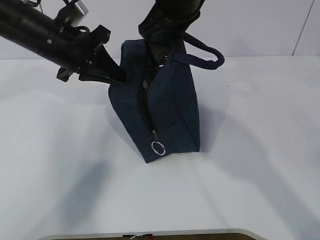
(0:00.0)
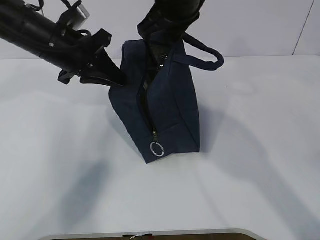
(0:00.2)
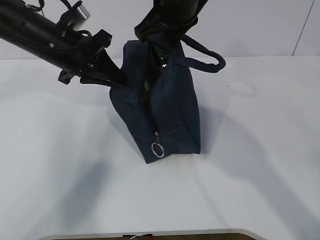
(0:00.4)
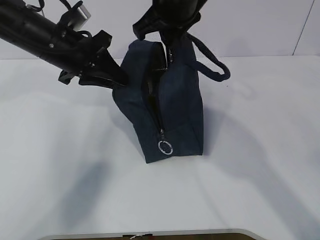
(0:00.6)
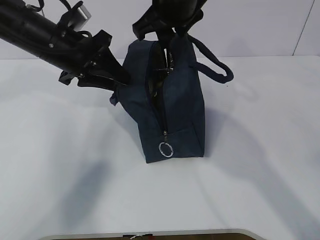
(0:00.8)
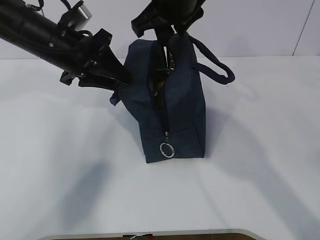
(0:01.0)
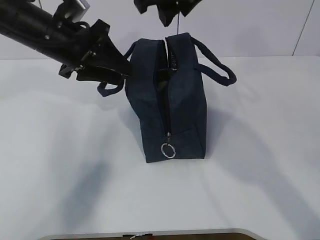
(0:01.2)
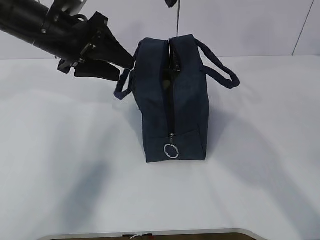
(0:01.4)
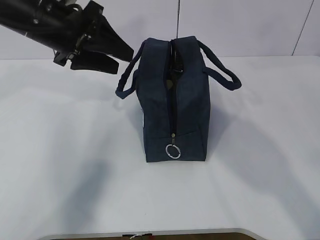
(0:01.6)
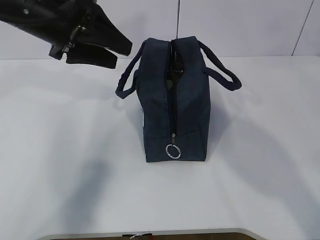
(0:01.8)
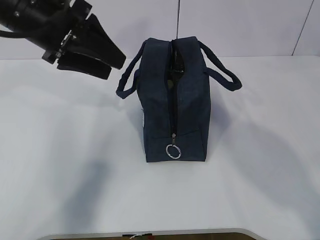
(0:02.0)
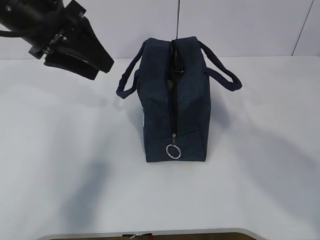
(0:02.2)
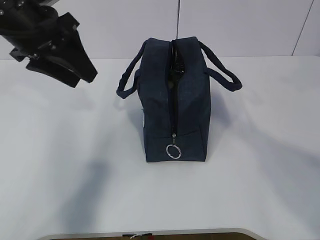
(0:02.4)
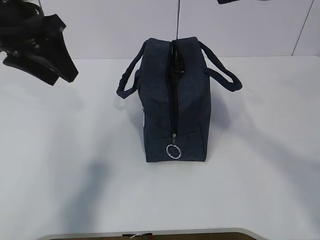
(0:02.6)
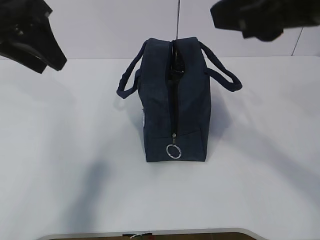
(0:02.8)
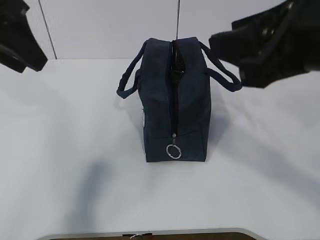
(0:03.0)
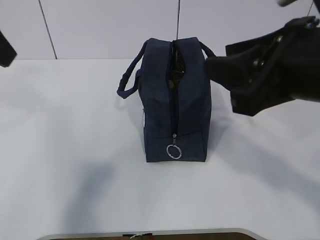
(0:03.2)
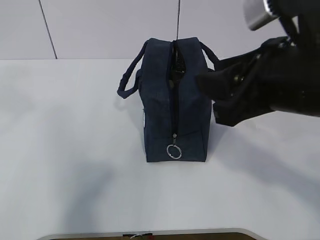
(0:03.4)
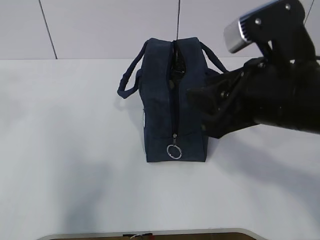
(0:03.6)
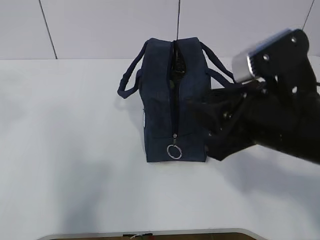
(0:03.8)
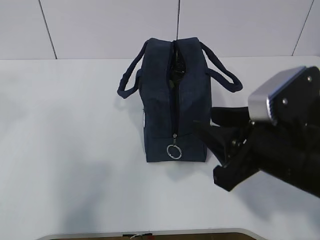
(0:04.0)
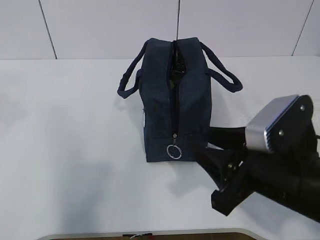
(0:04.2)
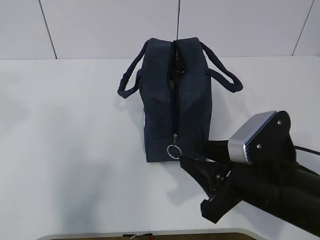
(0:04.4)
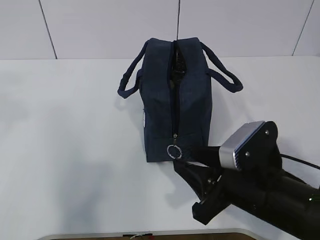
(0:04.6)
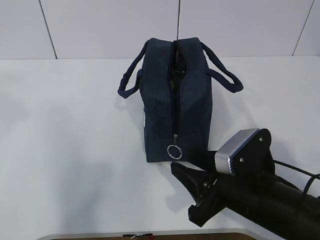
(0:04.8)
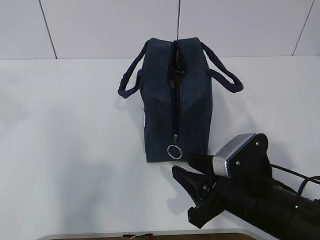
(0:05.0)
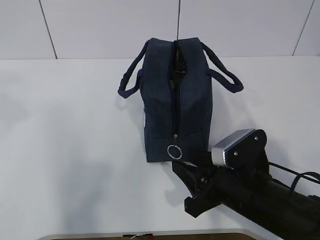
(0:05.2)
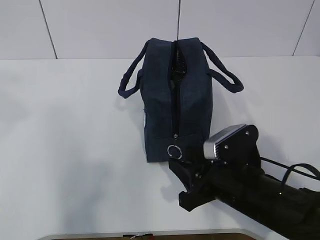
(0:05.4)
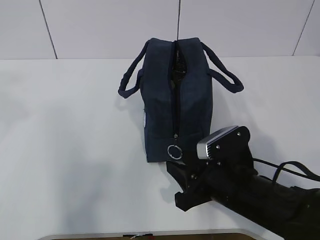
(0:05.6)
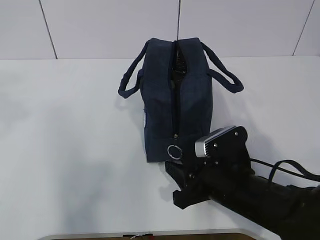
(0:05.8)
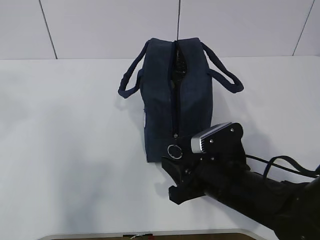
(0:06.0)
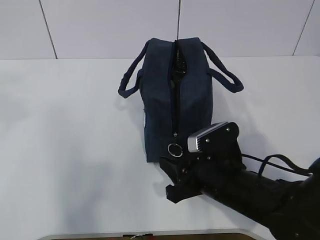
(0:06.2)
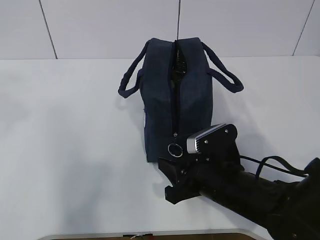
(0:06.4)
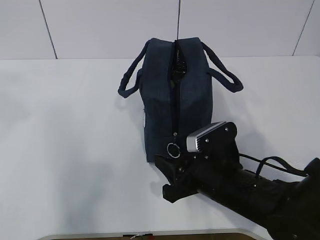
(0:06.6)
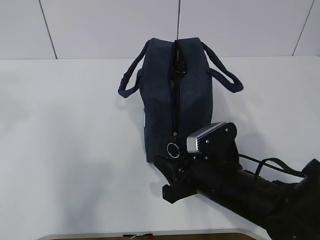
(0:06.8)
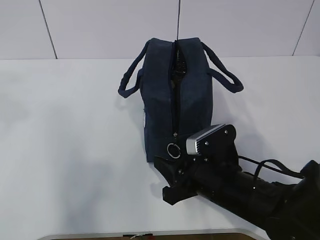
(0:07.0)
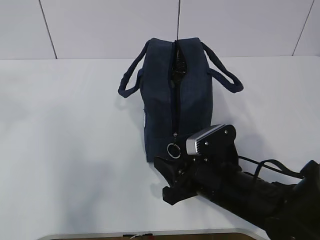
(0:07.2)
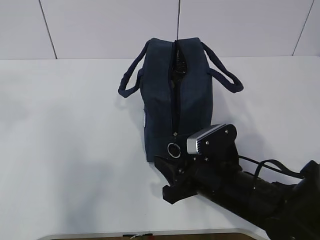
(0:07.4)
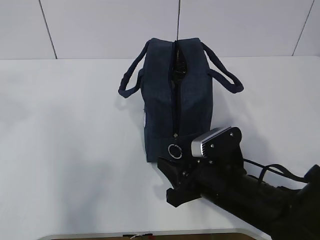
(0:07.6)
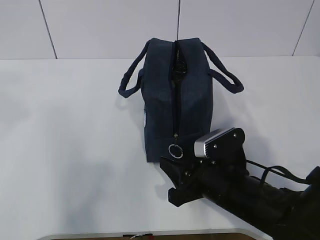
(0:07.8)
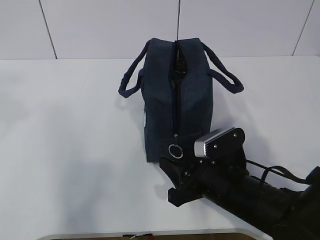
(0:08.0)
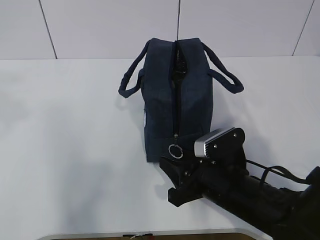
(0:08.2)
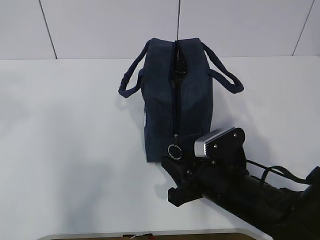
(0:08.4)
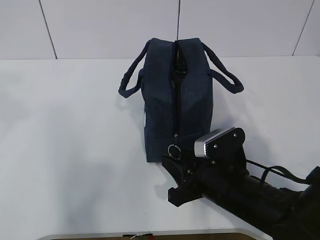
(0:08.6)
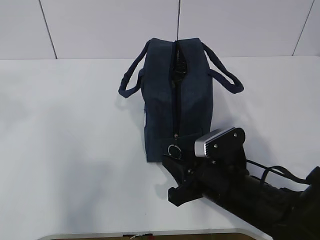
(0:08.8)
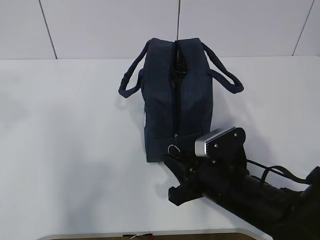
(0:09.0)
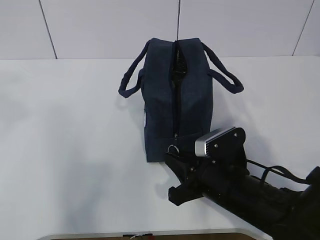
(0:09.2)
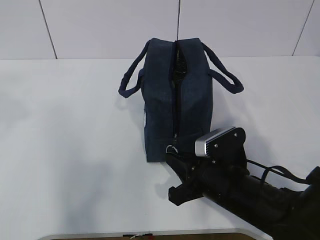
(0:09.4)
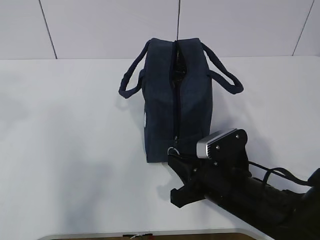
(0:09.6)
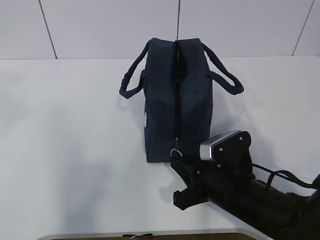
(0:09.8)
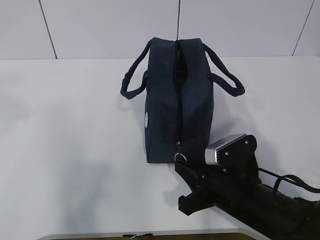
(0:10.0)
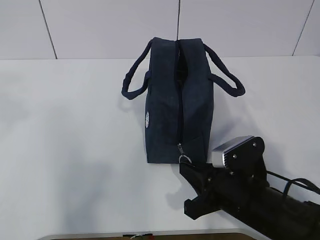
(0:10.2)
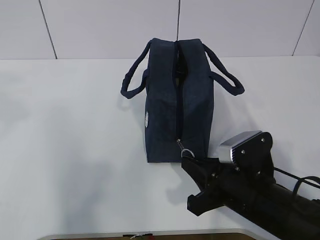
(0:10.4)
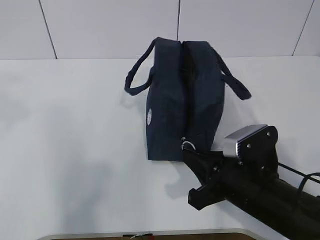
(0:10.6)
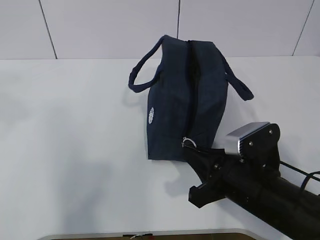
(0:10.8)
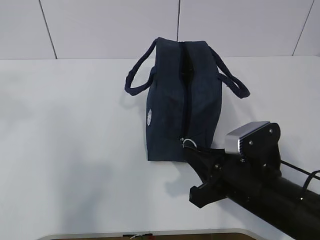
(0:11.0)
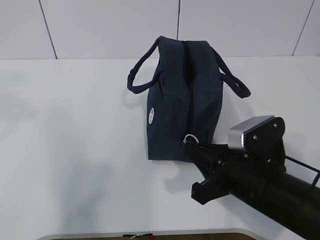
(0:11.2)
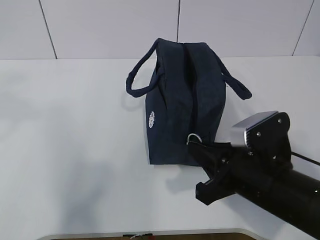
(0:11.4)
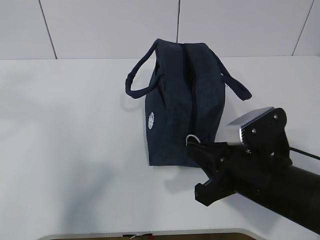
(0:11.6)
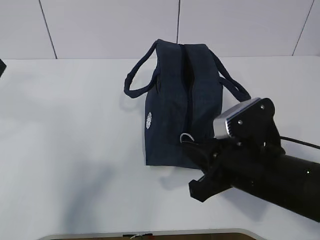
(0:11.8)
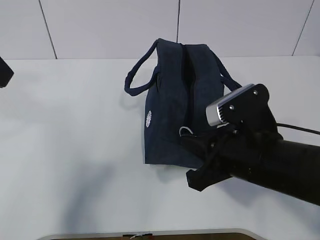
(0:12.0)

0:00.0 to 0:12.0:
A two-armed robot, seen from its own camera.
Step, 0:00.0 to 0:10.2: Grab the lunch bag with your left hand.
0:00.0 to 0:01.6: The right gripper shifts some 10 cm upward, and opens up; the left gripper opens up.
0:01.6 to 0:03.0: The right gripper shifts approximately 20 cm backward, to the right and downward; the left gripper heads upward, backward and to the left, covering approximately 10 cm.
0:03.0 to 0:04.4: The left gripper shifts approximately 10 cm backward; the right gripper is displaced downward by about 20 cm.
0:04.4 to 0:06.0: The right gripper travels downward by approximately 5 cm.
0:06.0 to 0:07.6: The grippers move only a little.
0:07.6 to 0:09.0: Both grippers stay put.
0:09.0 to 0:10.4: There are only small adjustments of the grippers.
0:10.4 to 0:12.0: The right gripper goes roughly 10 cm upward; the left gripper shifts by roughly 5 cm.

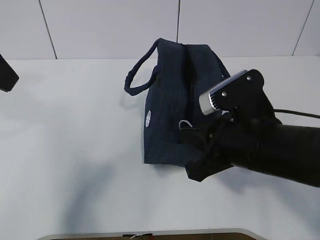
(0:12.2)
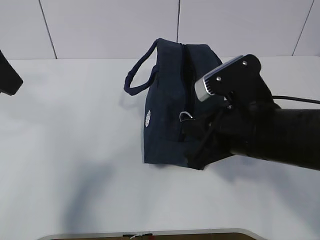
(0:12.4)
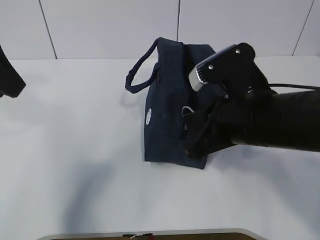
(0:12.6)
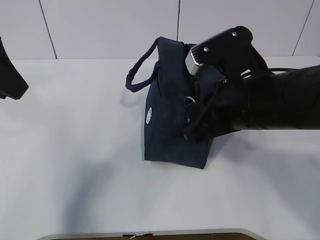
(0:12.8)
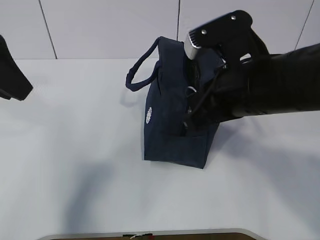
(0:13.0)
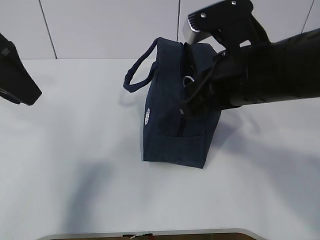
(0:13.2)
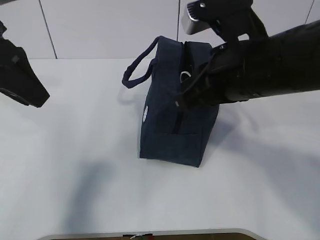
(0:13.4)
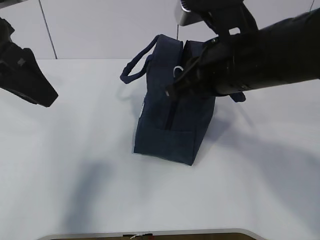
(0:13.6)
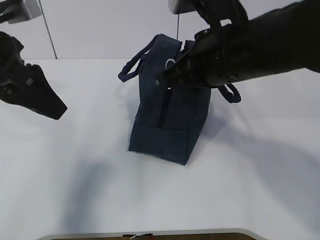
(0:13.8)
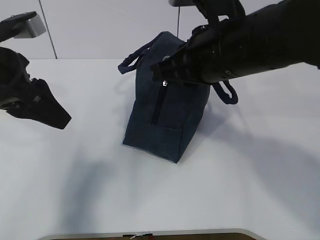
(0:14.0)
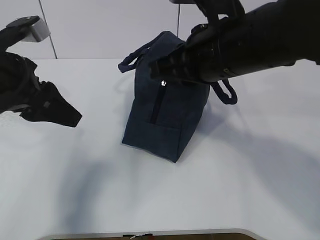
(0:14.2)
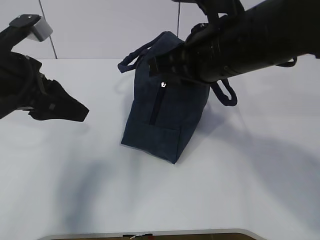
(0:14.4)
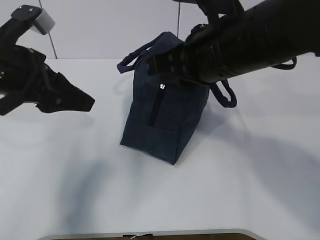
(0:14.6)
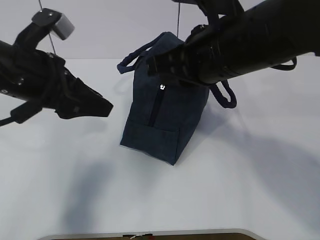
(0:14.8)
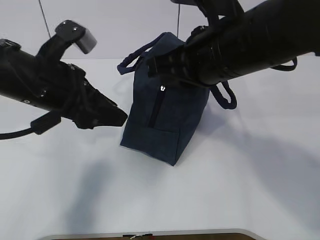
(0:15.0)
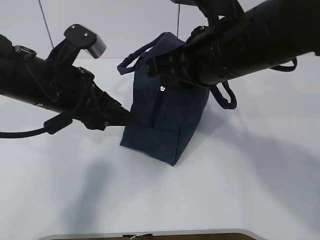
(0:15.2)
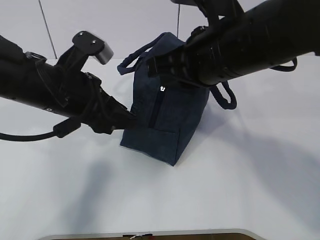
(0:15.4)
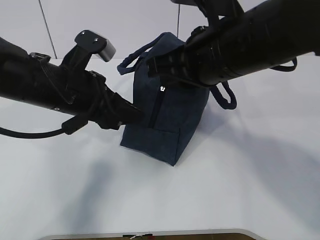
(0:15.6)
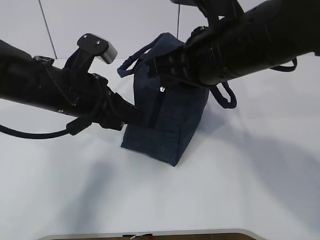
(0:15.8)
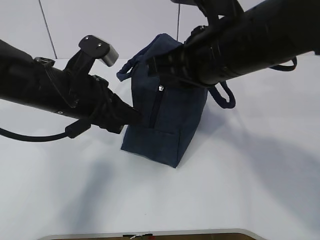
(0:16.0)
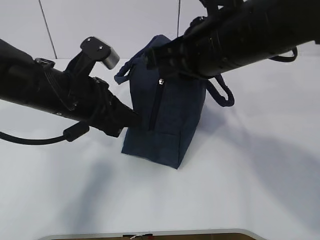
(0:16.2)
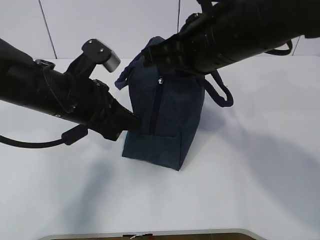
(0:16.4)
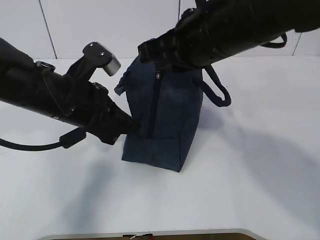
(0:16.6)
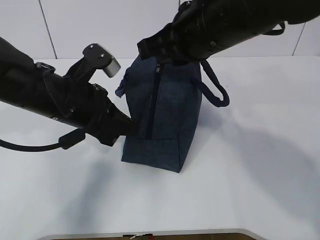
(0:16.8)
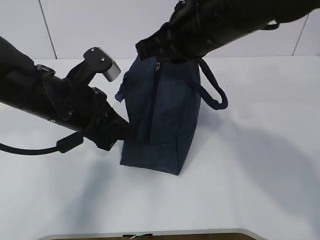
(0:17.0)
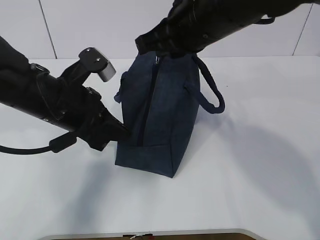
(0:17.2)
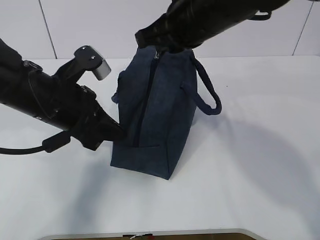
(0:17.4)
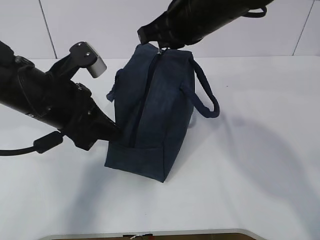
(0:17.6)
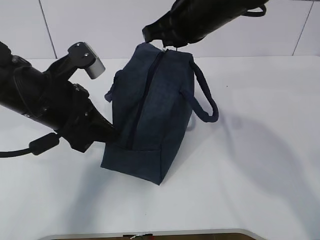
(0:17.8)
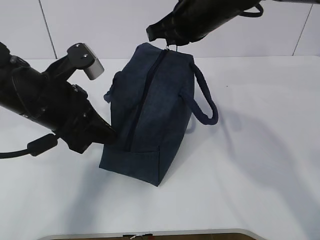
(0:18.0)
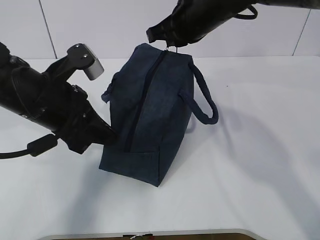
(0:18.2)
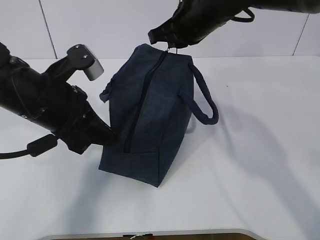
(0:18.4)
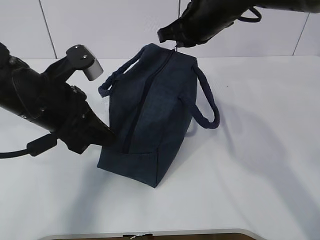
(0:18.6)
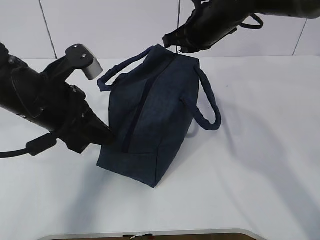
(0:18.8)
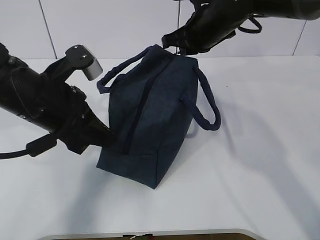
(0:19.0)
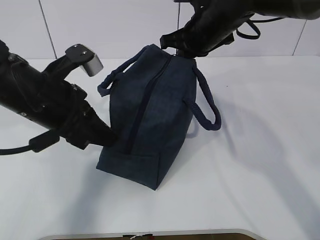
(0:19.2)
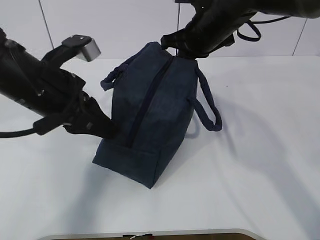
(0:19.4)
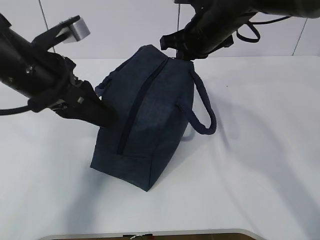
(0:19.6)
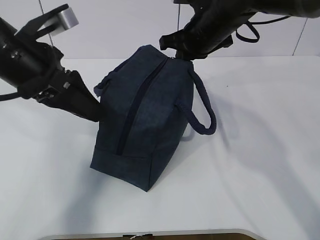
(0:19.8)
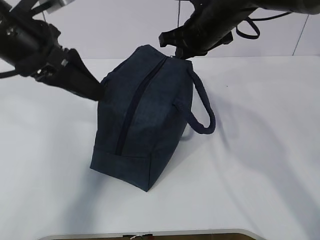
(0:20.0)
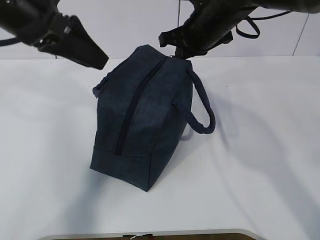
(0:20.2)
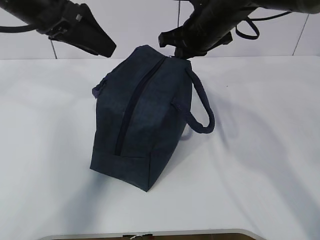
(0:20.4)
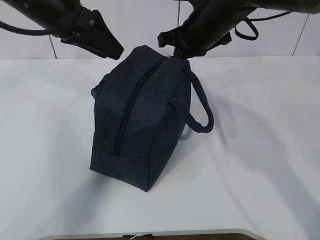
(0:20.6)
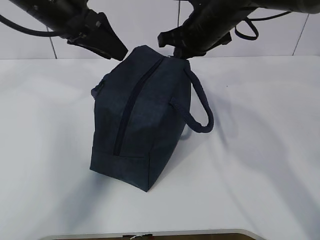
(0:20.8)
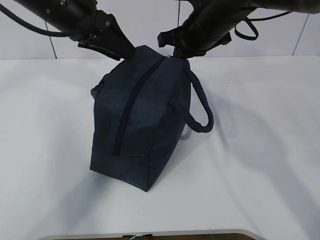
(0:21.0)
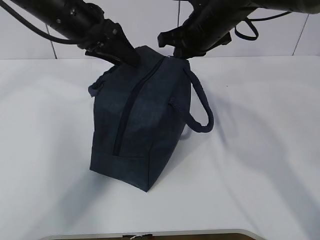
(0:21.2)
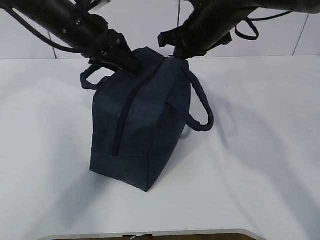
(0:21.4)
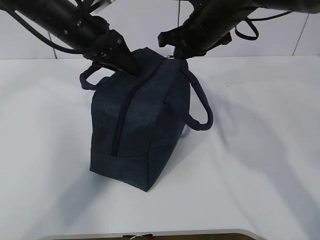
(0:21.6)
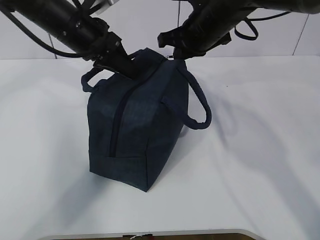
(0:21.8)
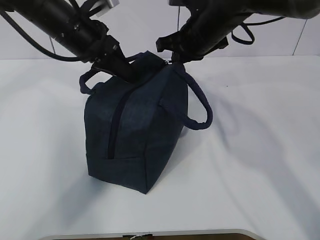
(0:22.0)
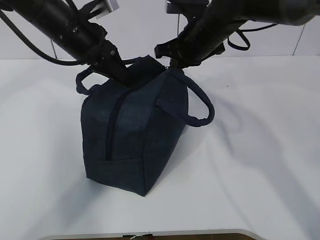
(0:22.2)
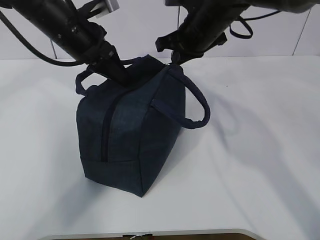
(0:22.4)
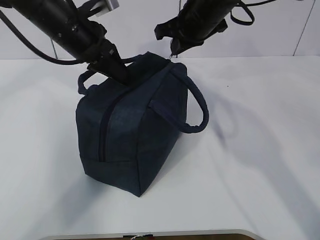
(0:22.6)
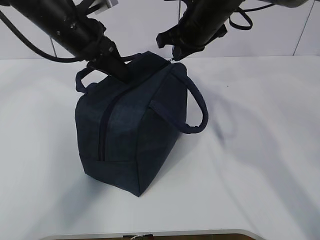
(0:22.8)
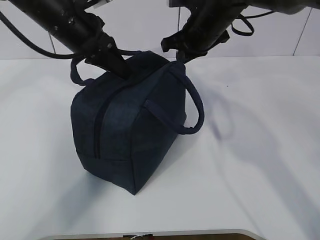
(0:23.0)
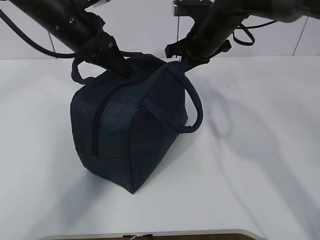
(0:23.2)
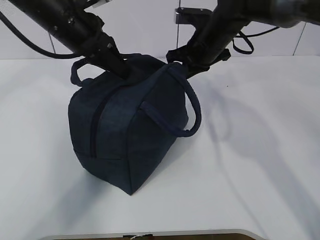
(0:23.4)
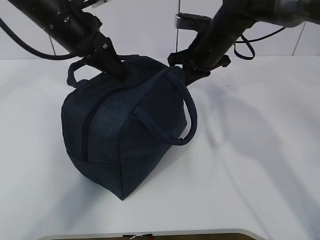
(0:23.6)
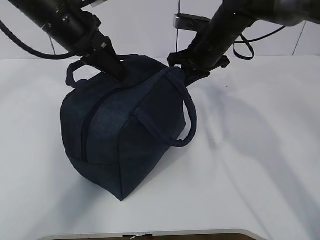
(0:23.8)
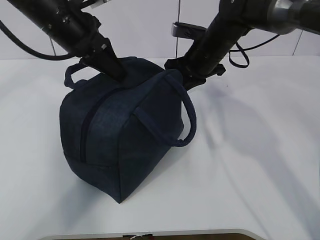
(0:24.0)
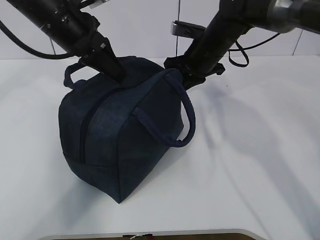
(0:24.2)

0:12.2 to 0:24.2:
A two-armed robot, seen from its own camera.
Step, 0:12.2 to 0:14.8: Pull the zipper with your right hand.
Step, 0:15.0 to 0:15.2: Grab the lunch bag with your left hand.
0:12.2 to 0:13.8: The left gripper moves downward, roughly 5 cm, while the right gripper moves upward and forward, some 10 cm.
0:13.8 to 0:15.2: The left gripper heads downward and to the right, covering some 10 cm.
0:15.2 to 0:16.6: The left gripper closes its fingers.
0:16.6 to 0:18.2: The right gripper travels forward by about 10 cm.
0:18.2 to 0:19.8: The left gripper heads upward, covering some 5 cm, and opens.
0:19.8 to 0:21.2: The left gripper moves forward, some 10 cm.
0:21.2 to 0:22.6: The left gripper closes.
0:22.6 to 0:24.2: The right gripper is displaced downward by about 10 cm.
